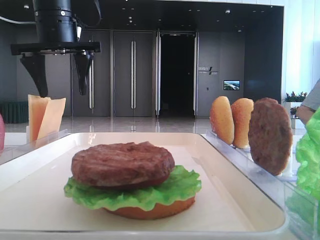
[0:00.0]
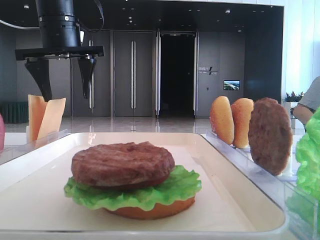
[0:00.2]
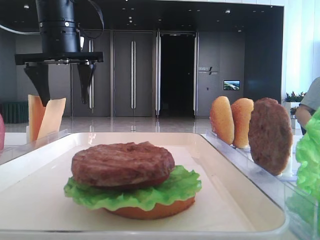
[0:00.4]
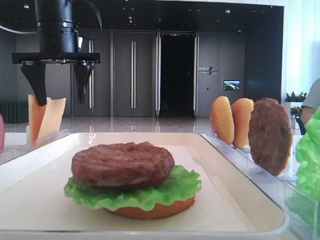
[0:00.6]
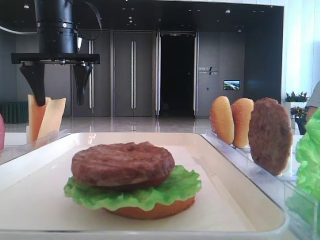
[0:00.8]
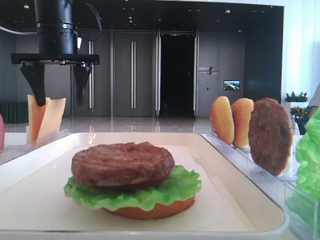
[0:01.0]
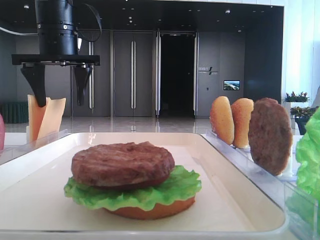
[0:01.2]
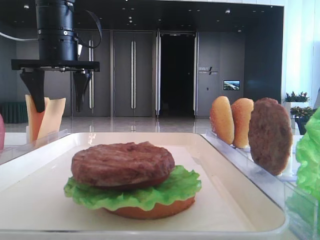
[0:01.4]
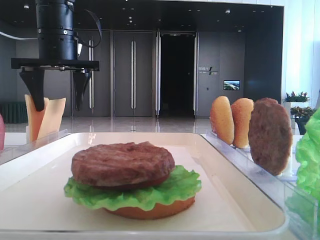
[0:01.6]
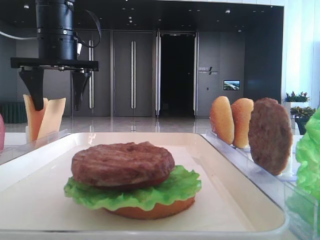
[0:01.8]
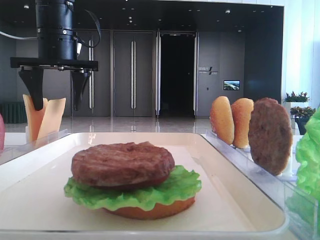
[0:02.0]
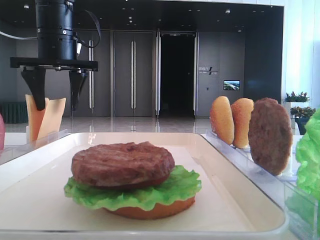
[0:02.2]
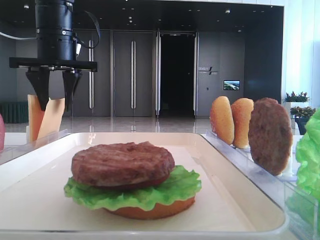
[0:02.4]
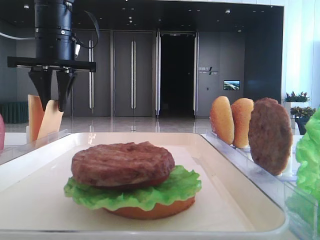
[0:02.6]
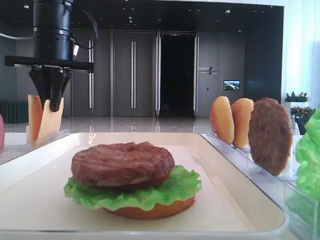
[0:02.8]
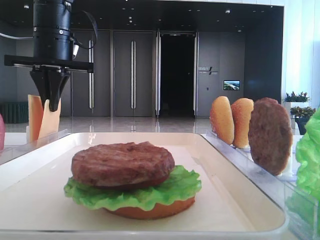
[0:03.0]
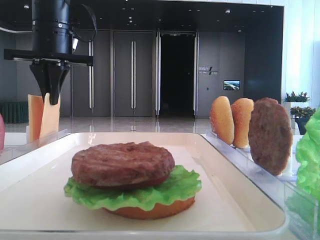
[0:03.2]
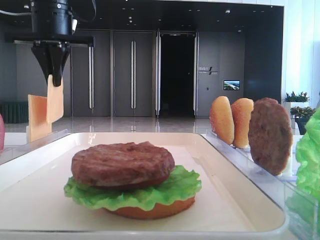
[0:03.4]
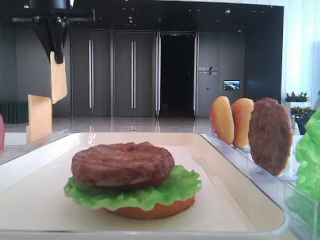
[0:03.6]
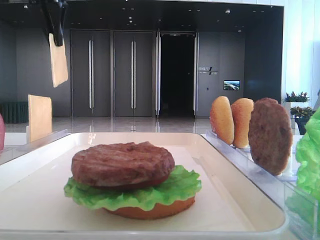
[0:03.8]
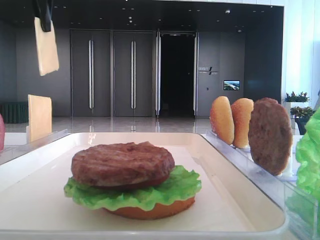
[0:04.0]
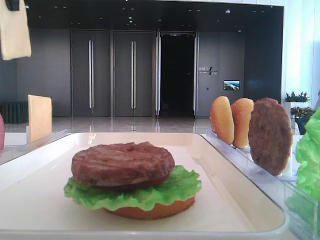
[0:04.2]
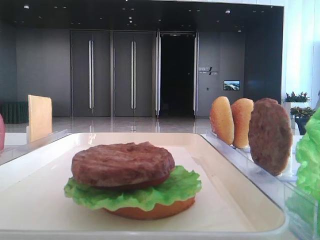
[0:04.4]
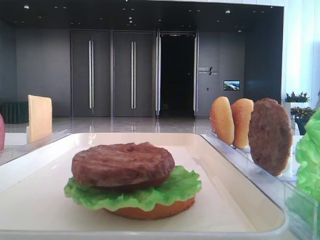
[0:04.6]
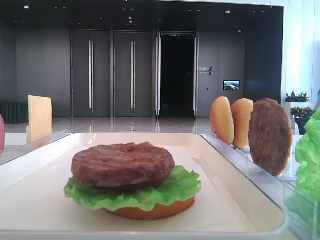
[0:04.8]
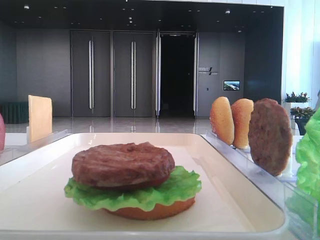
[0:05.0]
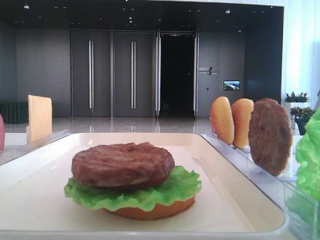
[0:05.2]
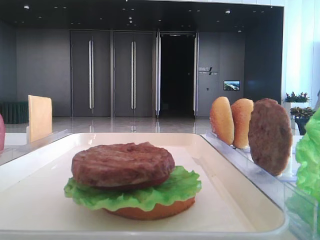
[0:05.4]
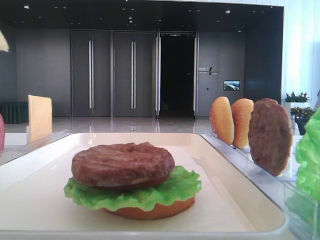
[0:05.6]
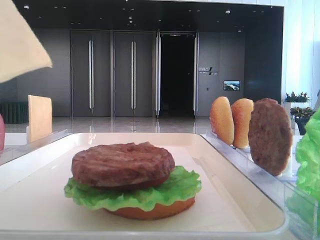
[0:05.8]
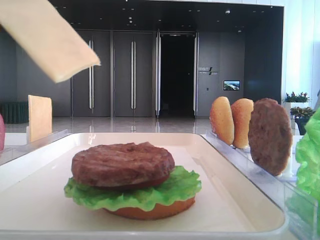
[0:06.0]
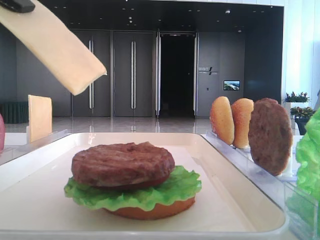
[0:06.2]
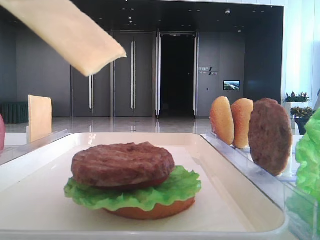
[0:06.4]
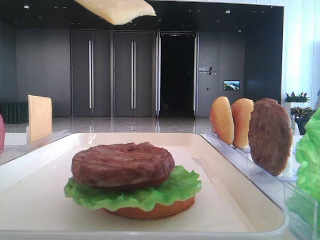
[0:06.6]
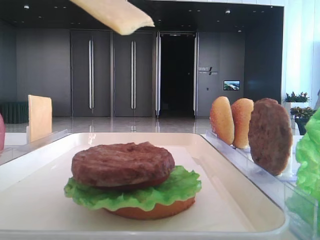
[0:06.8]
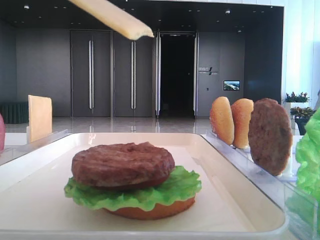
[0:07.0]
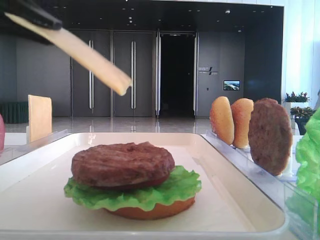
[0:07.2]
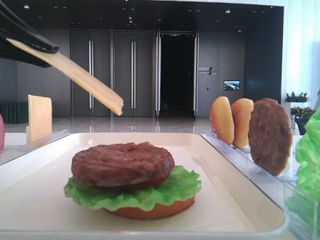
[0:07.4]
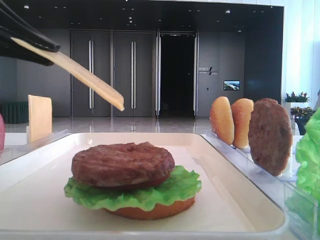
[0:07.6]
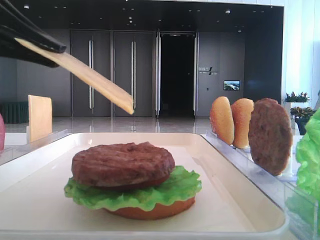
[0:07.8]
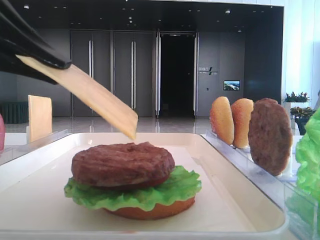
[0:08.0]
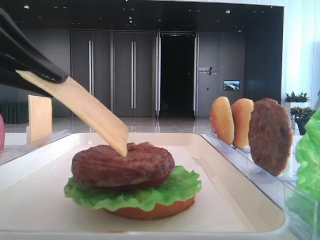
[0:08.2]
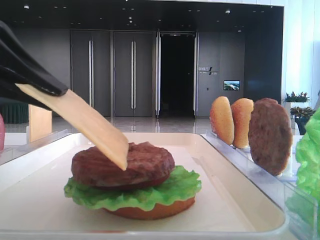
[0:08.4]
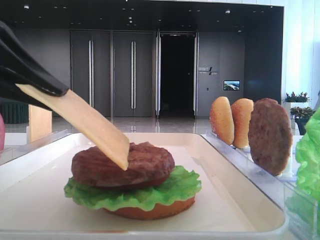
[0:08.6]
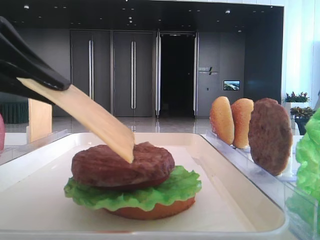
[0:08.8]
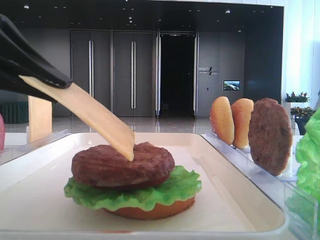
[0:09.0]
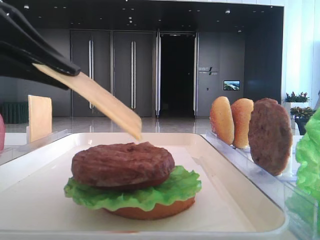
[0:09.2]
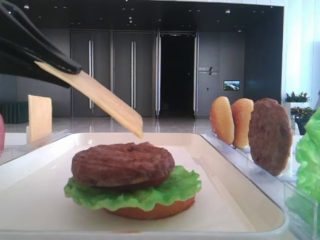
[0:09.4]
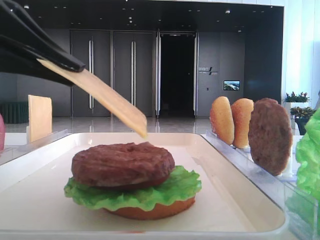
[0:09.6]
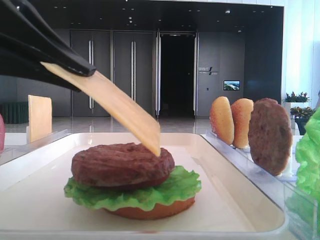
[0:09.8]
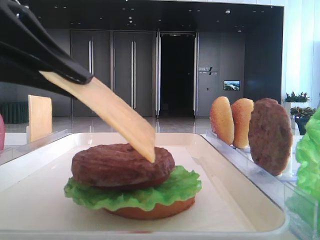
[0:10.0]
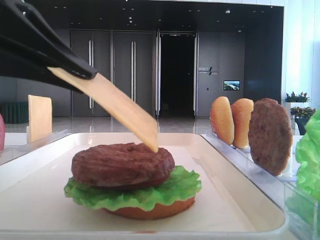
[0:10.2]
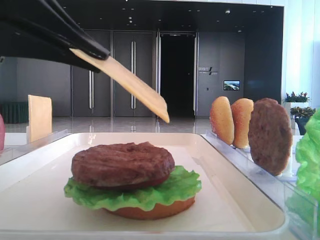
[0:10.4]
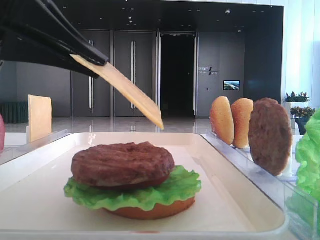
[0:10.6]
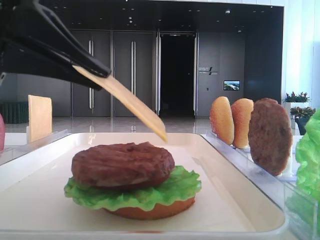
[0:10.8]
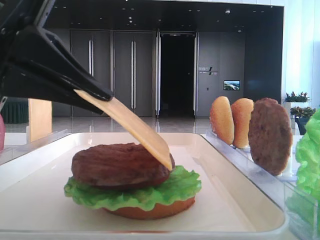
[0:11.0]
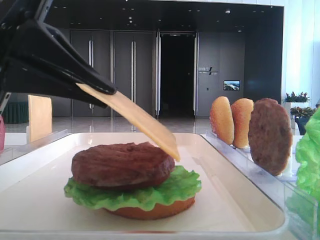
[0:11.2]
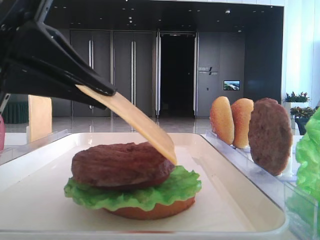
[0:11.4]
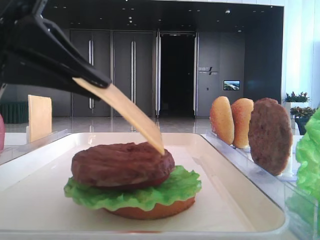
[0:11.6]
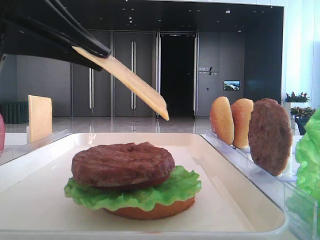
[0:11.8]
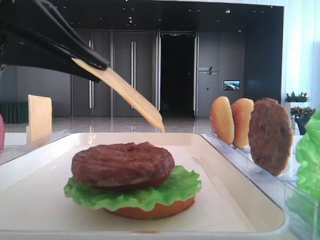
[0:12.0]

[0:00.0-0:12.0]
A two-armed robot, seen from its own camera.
Step, 0:00.0 to 0:02.8: Pick up the cheese slice with the left hand.
0:00.0 to 0:01.6: The grippers move only a little.
0:01.6 to 0:03.0: The left gripper closes.
0:03.0 to 0:04.4: The left gripper travels backward and upward by roughly 25 cm.
0:04.4 to 0:06.0: The left gripper is displaced downward and backward by approximately 15 cm.
0:06.0 to 0:07.6: The left gripper is displaced downward by approximately 10 cm.
0:07.6 to 0:12.0: The grippers move only a little.

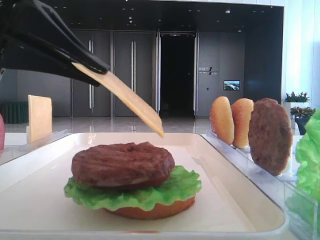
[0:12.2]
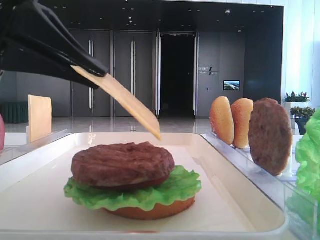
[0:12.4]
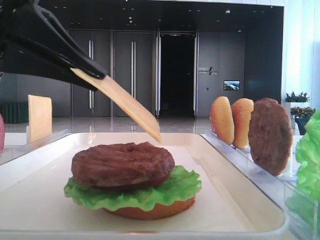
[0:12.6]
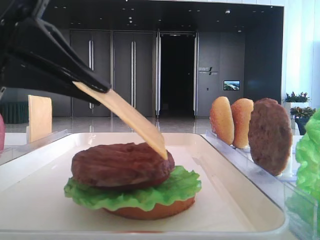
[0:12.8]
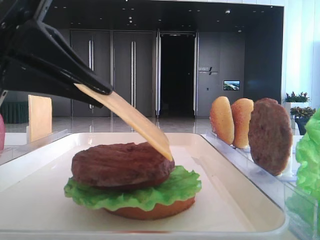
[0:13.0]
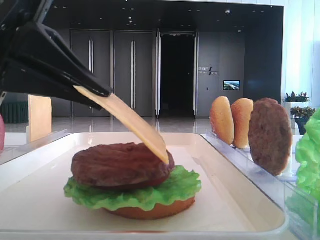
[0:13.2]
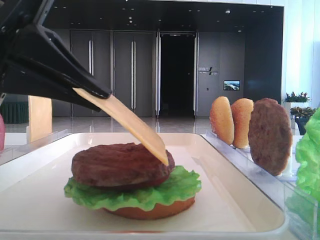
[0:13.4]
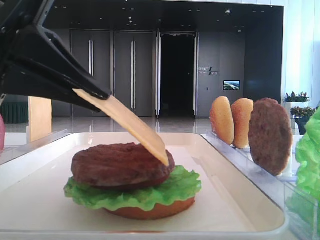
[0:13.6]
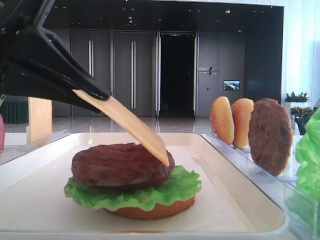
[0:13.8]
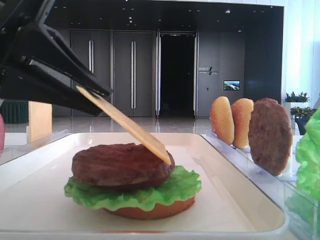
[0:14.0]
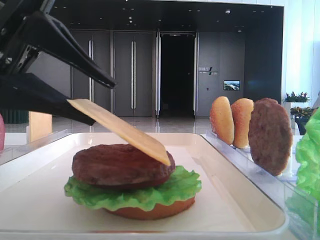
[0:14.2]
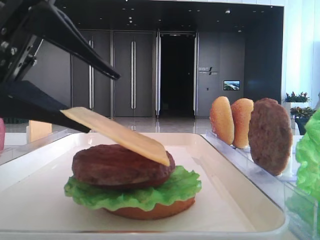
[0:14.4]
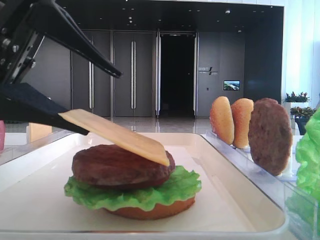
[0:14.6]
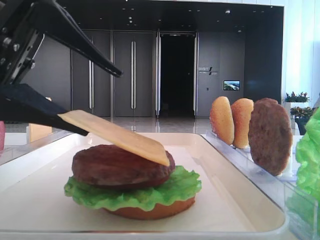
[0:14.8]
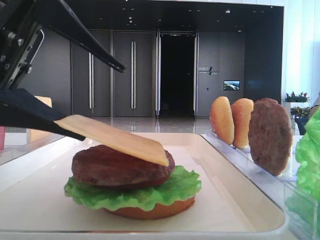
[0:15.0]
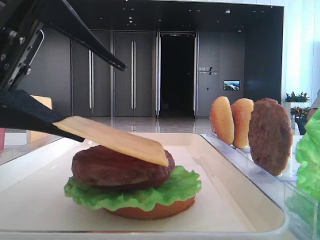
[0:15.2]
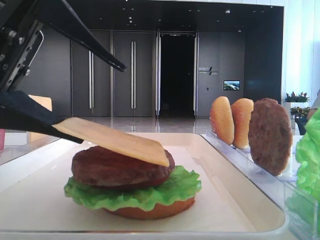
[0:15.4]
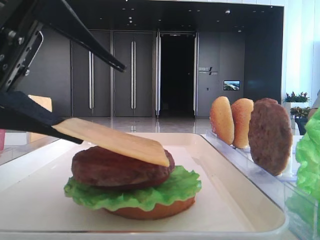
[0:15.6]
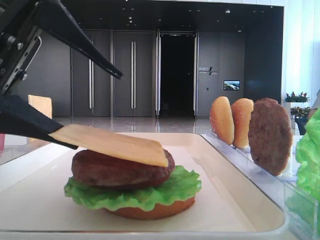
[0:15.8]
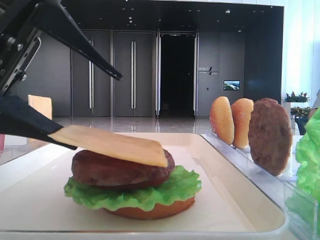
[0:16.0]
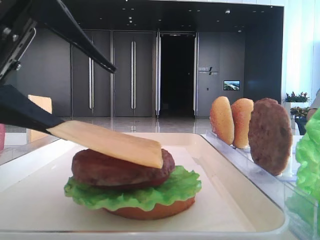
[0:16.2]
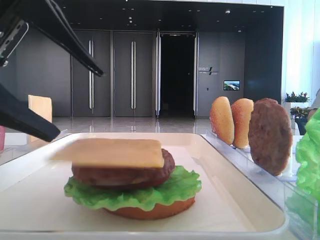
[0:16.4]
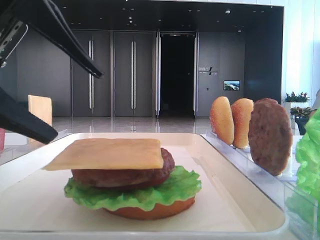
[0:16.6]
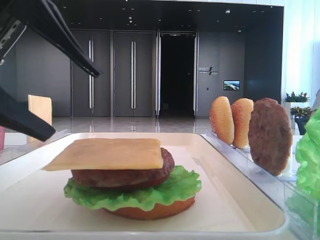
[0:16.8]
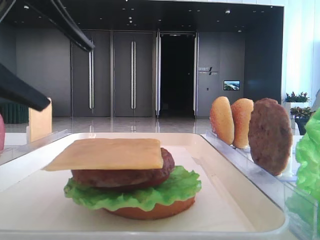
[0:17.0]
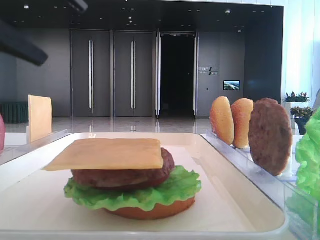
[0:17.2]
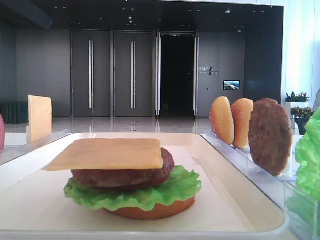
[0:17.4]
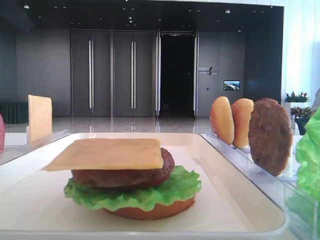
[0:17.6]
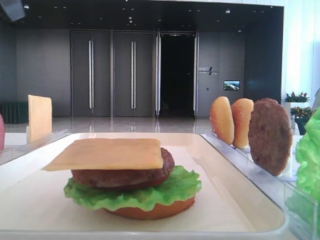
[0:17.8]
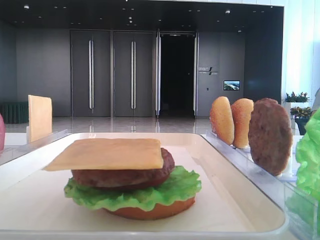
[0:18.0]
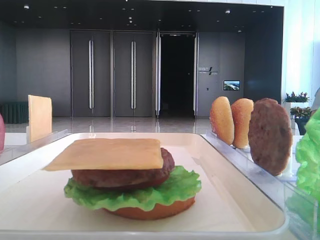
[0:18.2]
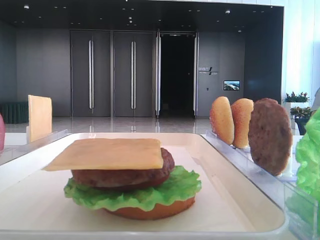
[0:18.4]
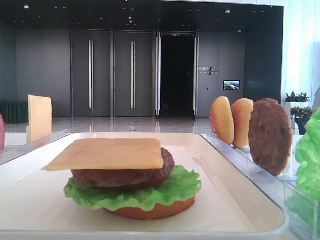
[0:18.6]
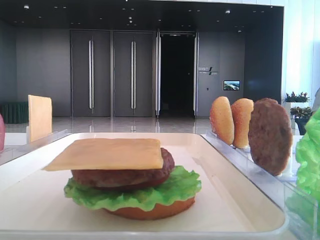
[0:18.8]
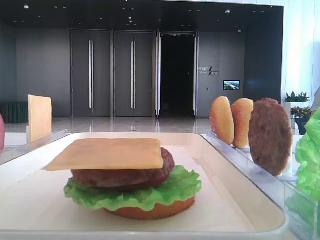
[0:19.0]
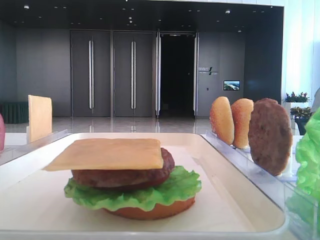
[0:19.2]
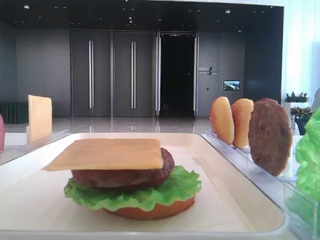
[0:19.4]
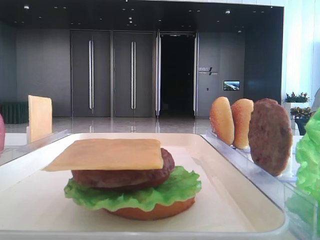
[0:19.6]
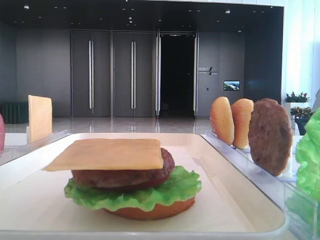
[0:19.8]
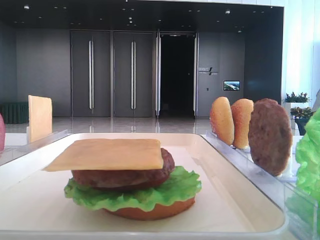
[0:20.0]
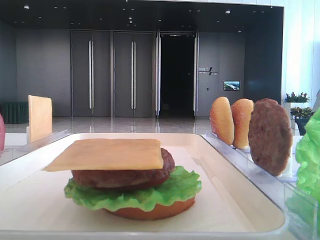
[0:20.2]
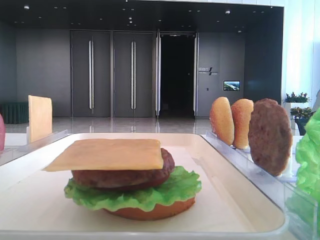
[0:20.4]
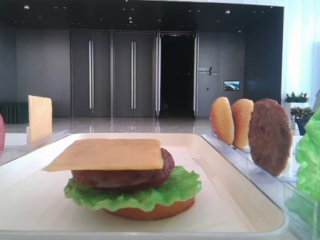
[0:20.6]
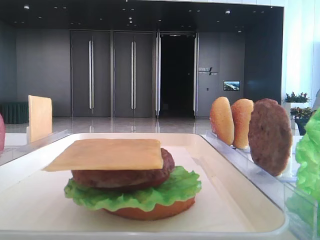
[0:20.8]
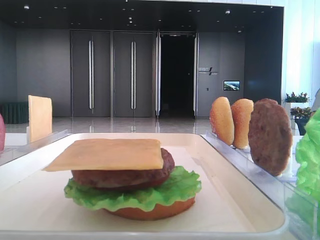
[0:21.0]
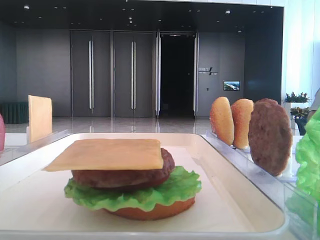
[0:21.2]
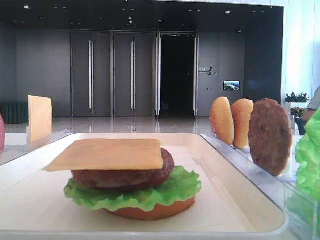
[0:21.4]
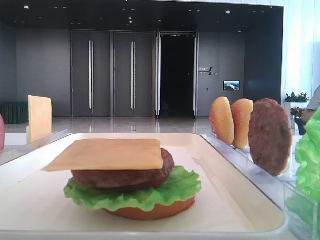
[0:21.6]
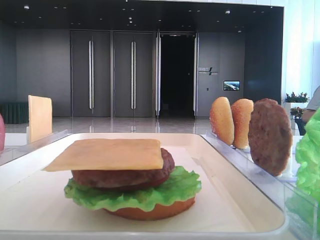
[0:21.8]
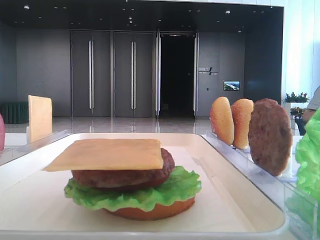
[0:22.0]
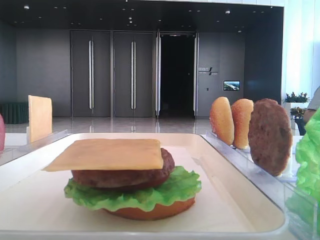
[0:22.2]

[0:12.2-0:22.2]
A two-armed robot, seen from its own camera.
Step, 0:12.2 to 0:16.2: Place the cheese slice on the patty with the left hand.
0:12.2 to 0:13.6: There are only small adjustments of the grippers.
0:13.6 to 0:15.0: The left gripper opens up.
0:15.0 to 0:16.4: The grippers move only a little.
0:16.4 to 0:18.0: The left gripper moves upward and to the left, approximately 15 cm.
0:20.8 to 0:22.2: Neither gripper changes place.
